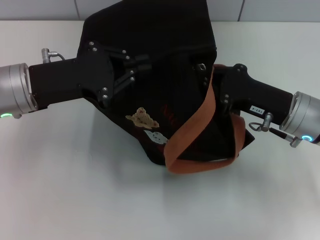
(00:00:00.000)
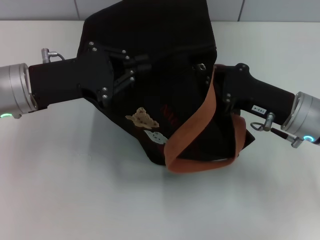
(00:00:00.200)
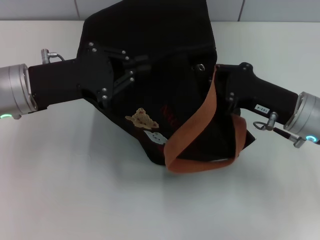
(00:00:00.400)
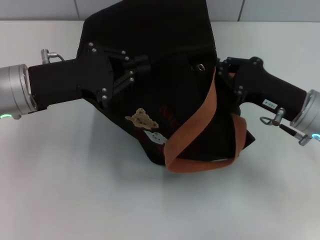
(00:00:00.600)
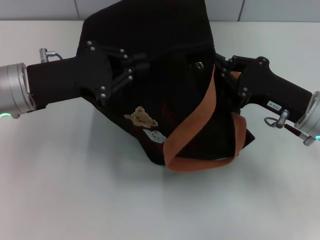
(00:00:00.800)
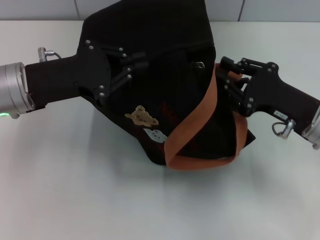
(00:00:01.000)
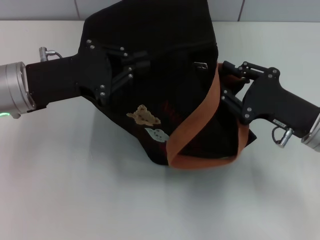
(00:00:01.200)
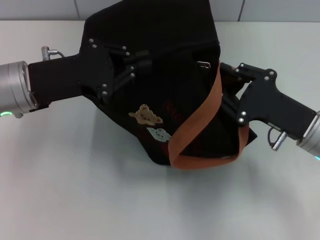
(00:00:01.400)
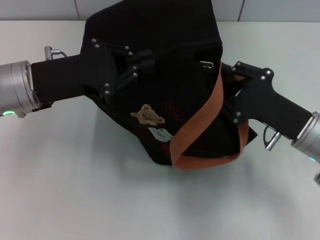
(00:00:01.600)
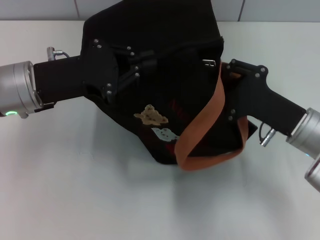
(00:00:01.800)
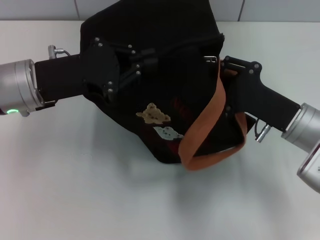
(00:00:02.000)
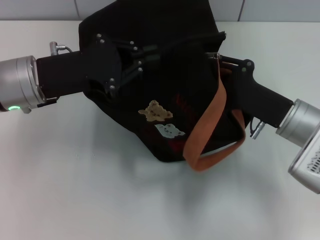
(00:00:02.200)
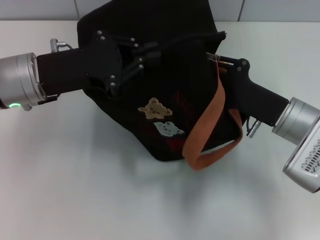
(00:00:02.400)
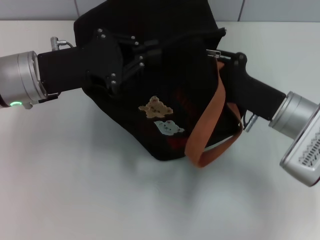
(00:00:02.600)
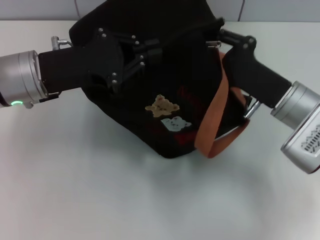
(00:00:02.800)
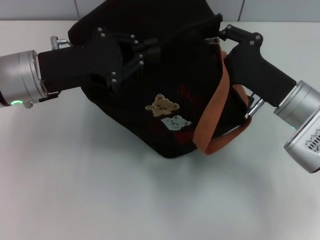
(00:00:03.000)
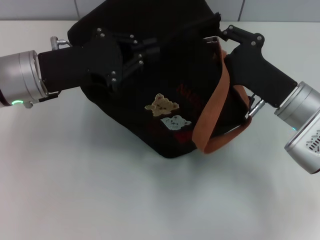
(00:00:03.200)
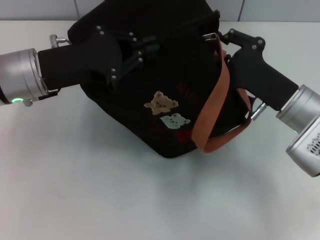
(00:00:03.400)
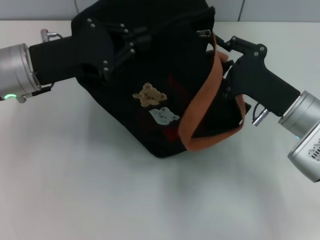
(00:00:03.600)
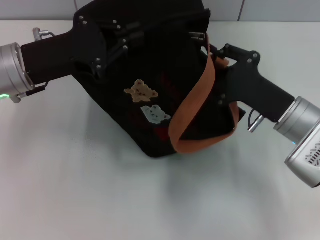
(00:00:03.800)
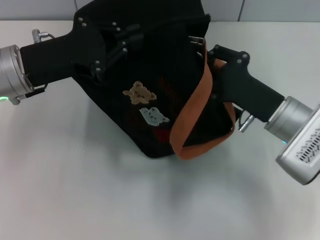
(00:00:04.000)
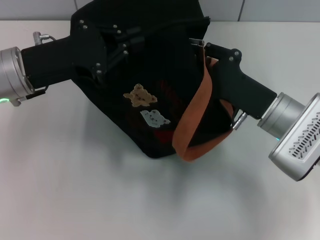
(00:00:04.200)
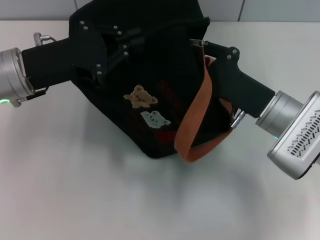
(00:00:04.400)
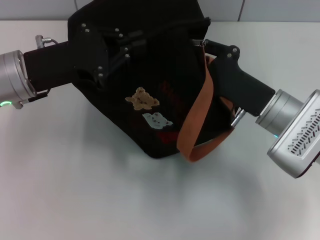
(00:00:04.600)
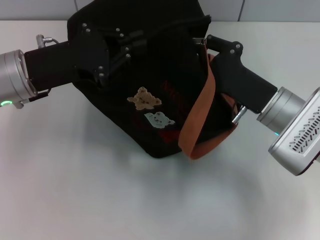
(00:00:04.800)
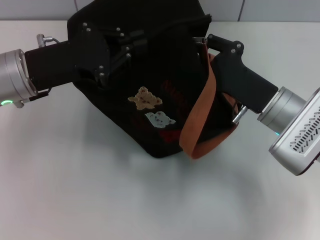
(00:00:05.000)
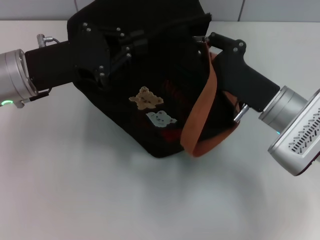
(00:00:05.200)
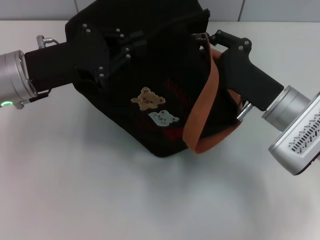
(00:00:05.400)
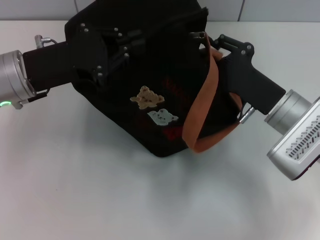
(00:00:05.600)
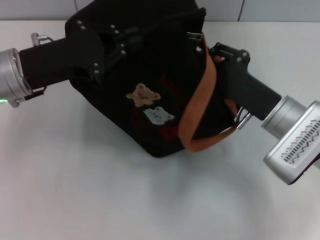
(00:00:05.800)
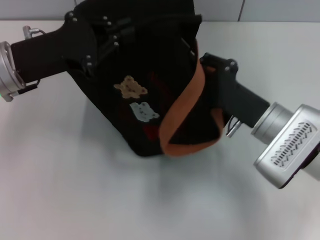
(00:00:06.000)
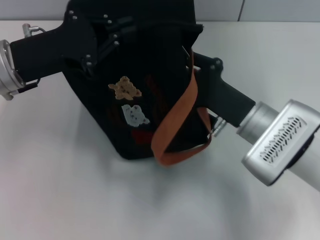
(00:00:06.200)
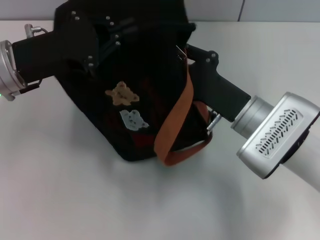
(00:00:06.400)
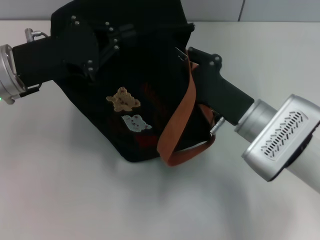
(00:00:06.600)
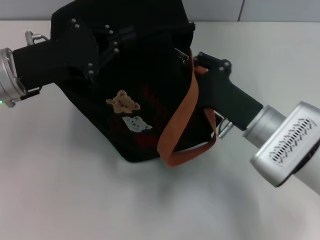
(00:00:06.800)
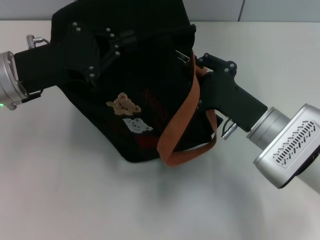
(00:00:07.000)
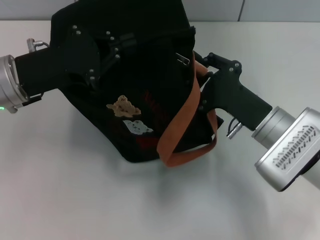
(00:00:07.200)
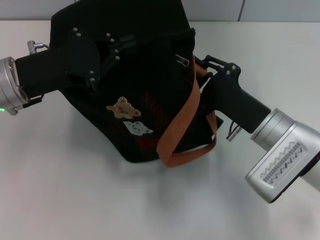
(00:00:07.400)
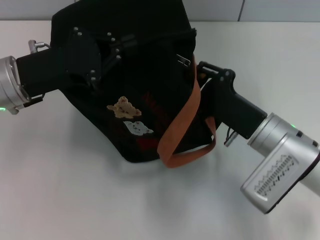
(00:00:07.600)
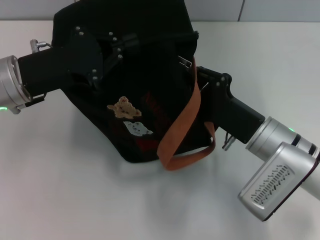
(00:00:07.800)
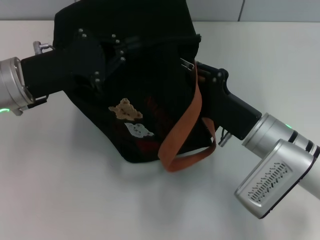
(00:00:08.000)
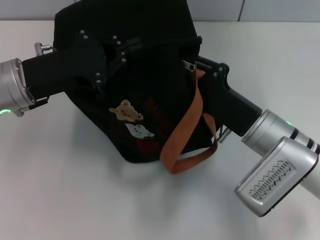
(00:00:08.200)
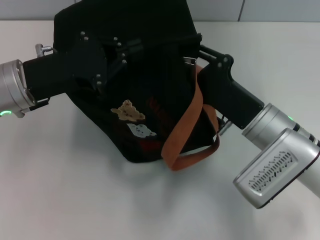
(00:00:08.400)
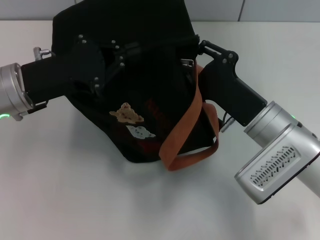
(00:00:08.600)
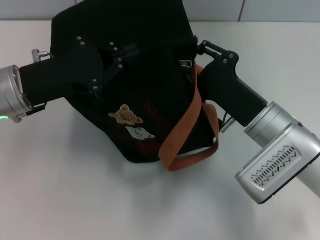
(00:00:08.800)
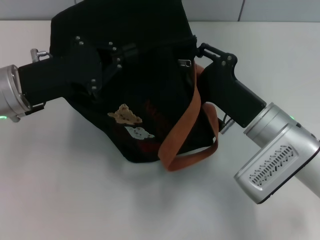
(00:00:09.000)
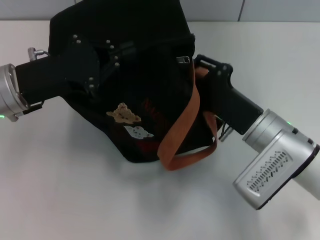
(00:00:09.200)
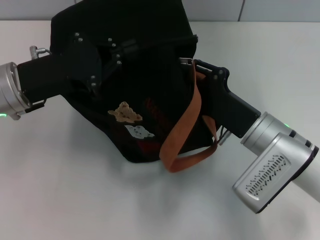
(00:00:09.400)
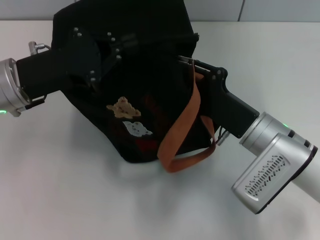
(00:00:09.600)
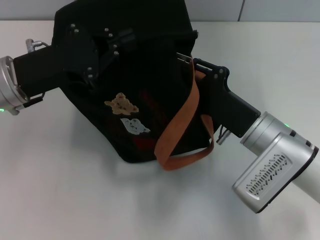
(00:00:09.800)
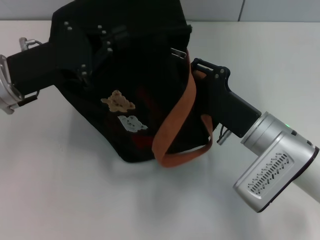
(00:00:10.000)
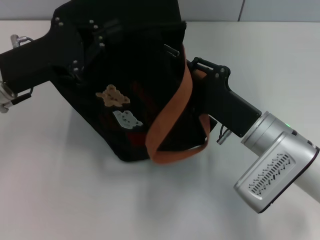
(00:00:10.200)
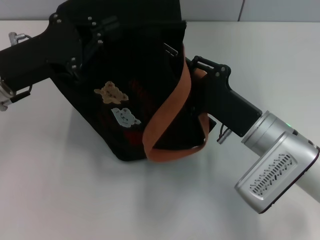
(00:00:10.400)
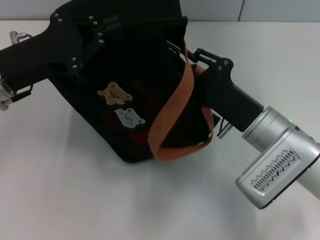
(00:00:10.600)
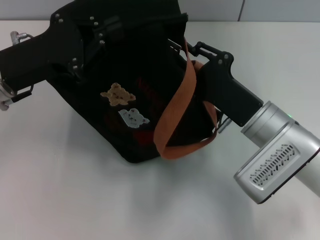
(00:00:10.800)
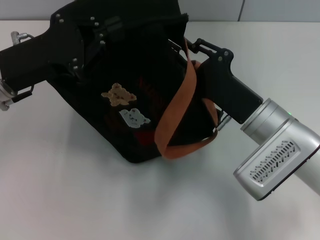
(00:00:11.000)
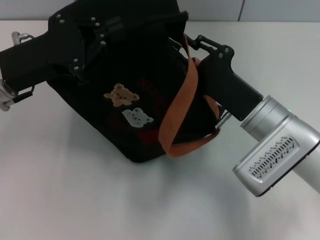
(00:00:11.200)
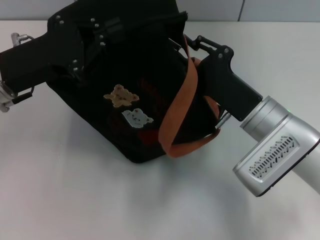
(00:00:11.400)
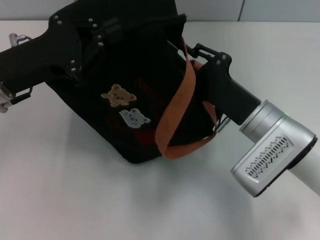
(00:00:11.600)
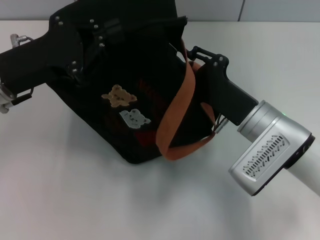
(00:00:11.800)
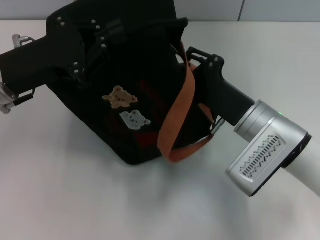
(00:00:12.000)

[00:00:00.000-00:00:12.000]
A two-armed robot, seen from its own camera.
00:00:00.000 to 00:00:01.600: The right gripper opens.
00:00:04.400 to 00:00:06.000: The grippers make only small movements.
00:00:07.600 to 00:00:09.000: The grippers move only a little.
00:00:10.400 to 00:00:12.000: The grippers make only small movements.

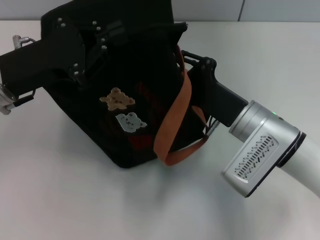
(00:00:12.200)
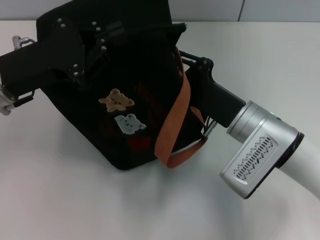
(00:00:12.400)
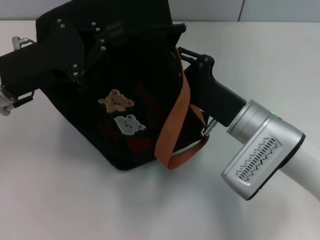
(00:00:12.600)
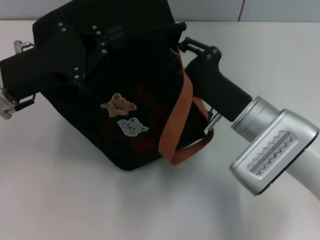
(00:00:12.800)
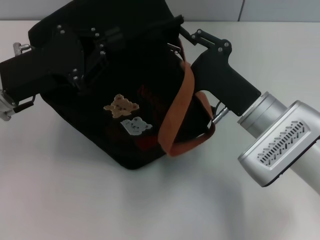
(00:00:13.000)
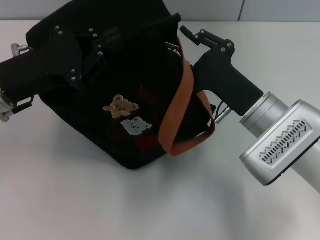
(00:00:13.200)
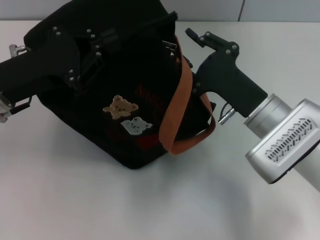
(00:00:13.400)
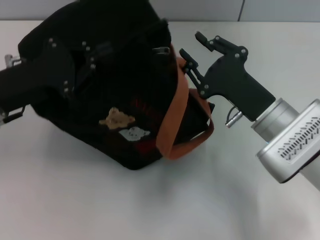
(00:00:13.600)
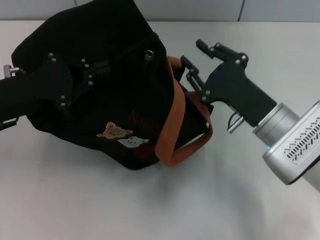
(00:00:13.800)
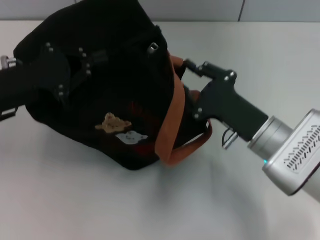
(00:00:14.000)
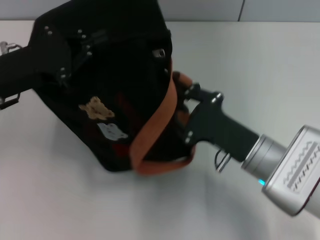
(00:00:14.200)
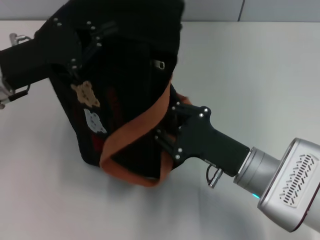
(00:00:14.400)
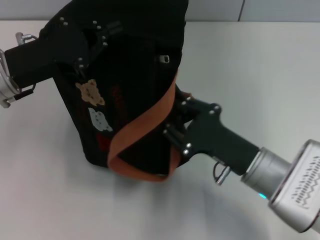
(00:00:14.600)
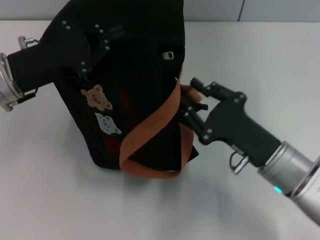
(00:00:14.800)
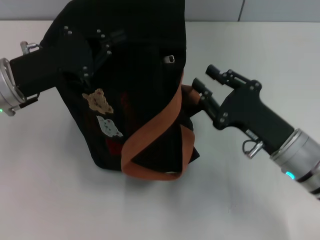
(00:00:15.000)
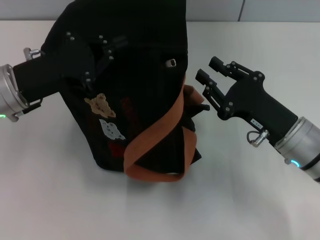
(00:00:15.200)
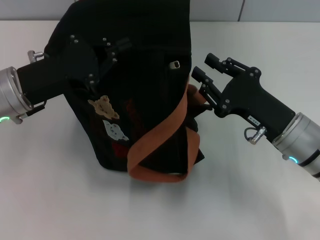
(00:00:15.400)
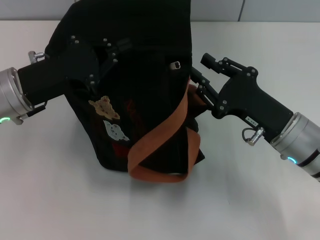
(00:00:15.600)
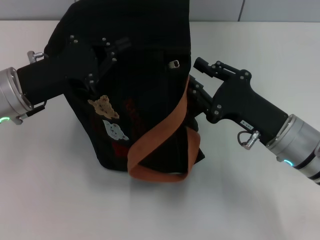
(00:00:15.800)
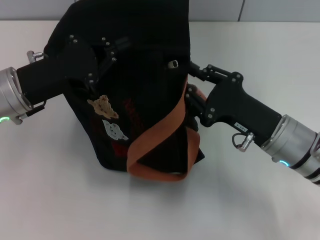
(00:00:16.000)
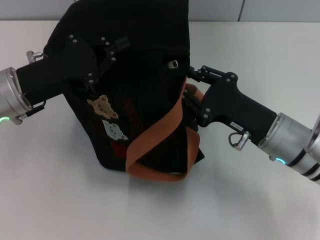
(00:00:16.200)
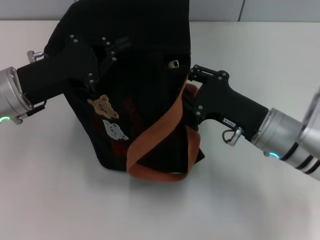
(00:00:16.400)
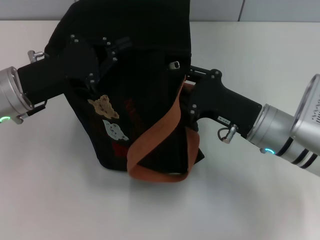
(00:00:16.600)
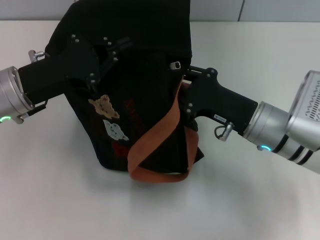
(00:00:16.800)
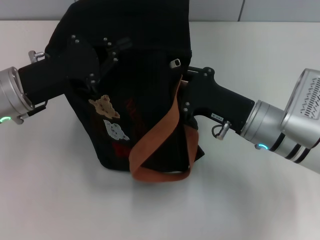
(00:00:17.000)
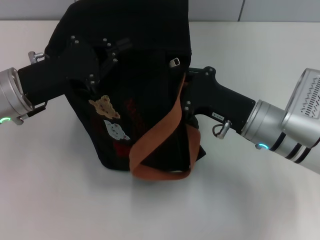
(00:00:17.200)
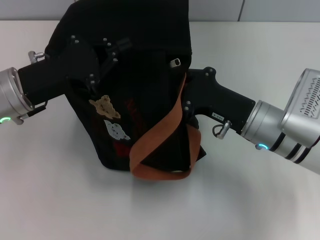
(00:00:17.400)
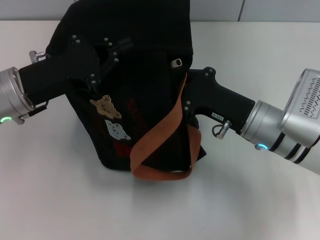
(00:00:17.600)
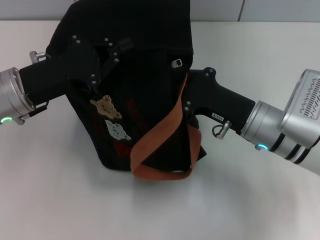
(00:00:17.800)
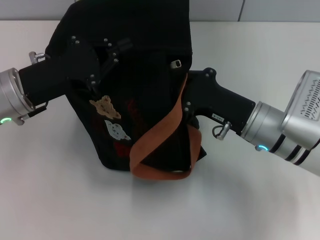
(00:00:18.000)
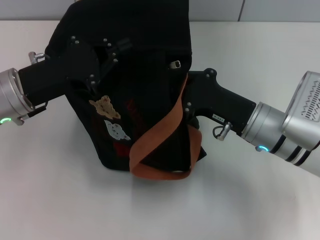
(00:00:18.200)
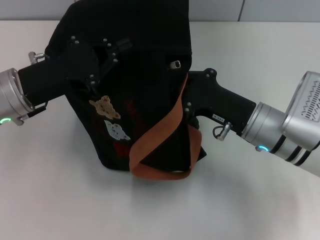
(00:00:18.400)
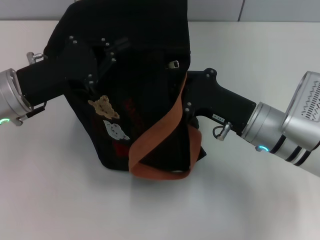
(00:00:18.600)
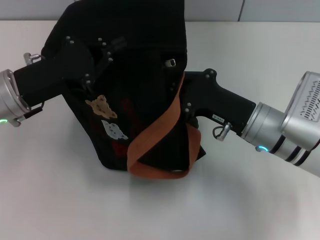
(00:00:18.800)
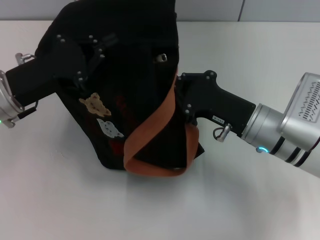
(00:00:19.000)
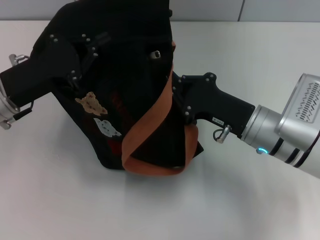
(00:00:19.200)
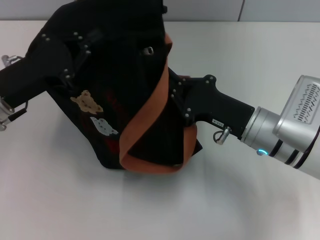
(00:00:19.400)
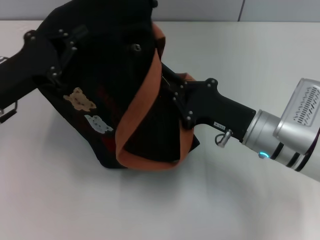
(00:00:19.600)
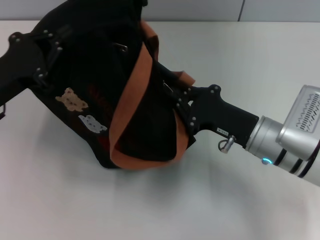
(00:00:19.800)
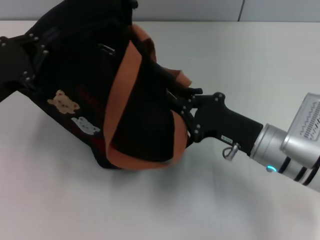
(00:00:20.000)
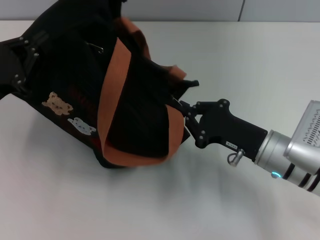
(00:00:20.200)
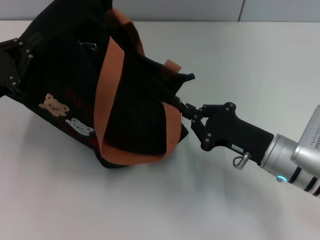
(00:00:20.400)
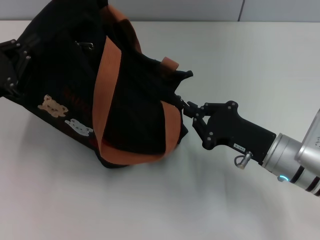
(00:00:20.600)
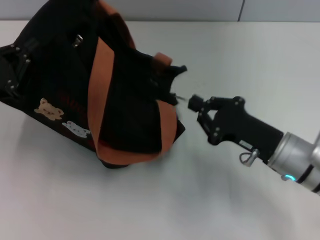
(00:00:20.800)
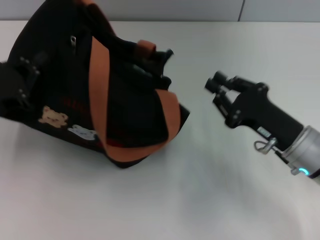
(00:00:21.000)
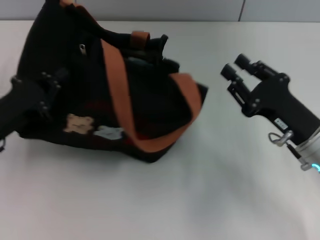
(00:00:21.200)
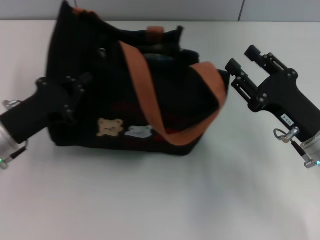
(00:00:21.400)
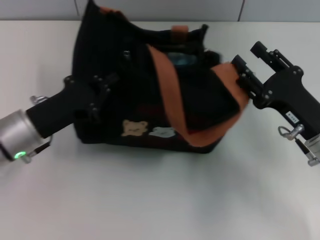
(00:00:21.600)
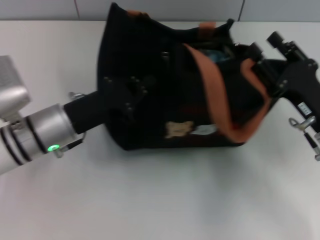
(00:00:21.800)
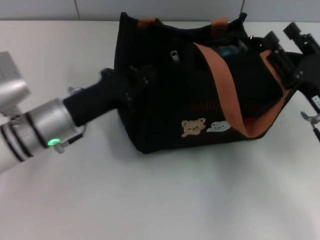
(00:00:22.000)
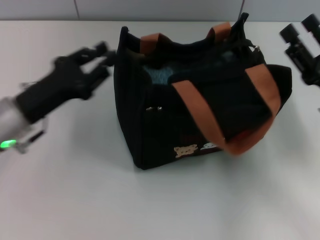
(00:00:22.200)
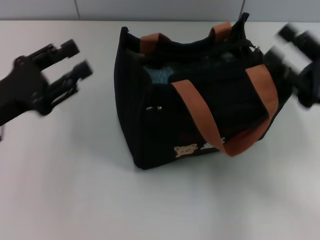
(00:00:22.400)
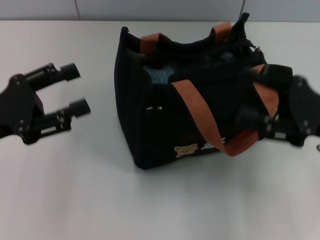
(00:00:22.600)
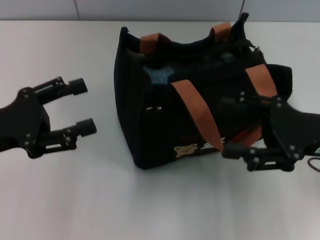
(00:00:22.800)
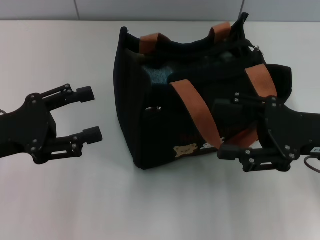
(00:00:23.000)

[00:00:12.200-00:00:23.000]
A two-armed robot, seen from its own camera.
Step, 00:00:12.200 to 00:00:21.400: Pull open the zipper with your right hand.
Step, 00:00:21.600 to 00:00:22.000: Grab the bag with your left hand.
00:00:15.200 to 00:00:16.800: The right gripper changes place by roughly 5 cm.
00:00:16.800 to 00:00:18.400: The right gripper closes.
00:00:18.400 to 00:00:20.000: The left gripper moves to the left, some 5 cm.
00:00:20.000 to 00:00:21.400: The left gripper shifts by approximately 5 cm. Meanwhile the right gripper heads to the right, covering about 5 cm, and opens up.
00:00:21.400 to 00:00:23.000: Both grippers move upward, some 5 cm. The right gripper opens; the left gripper goes to the right and returns, about 5 cm each way, and opens.
